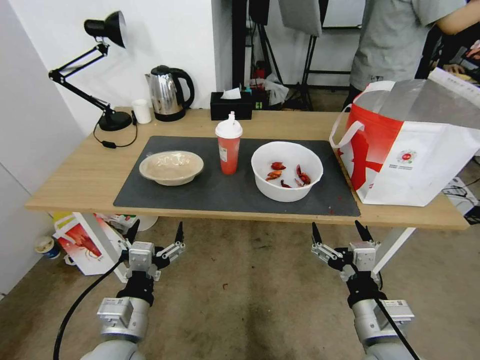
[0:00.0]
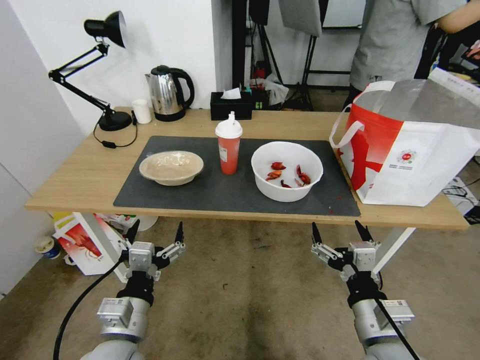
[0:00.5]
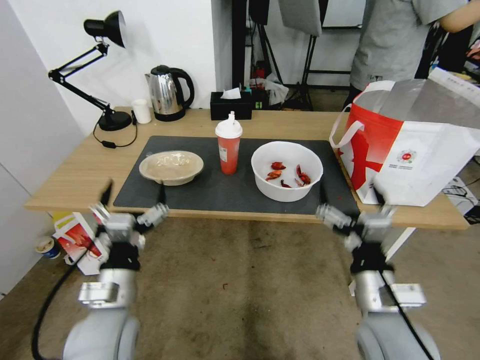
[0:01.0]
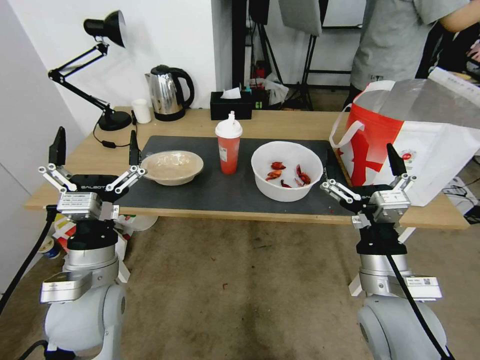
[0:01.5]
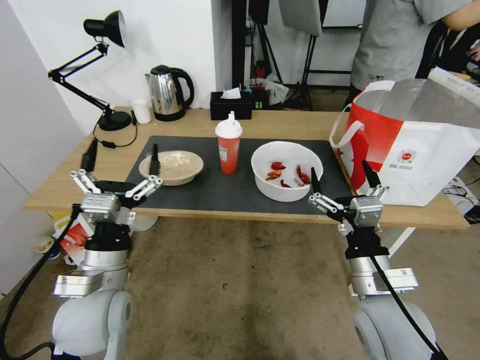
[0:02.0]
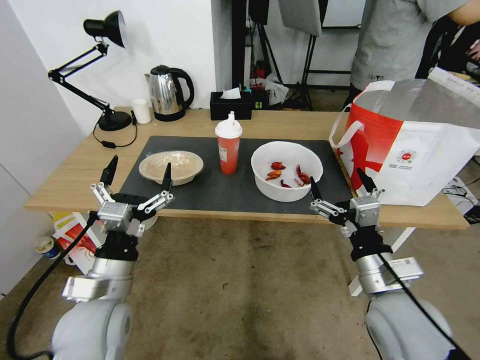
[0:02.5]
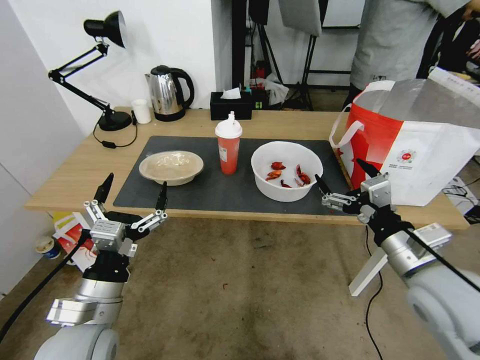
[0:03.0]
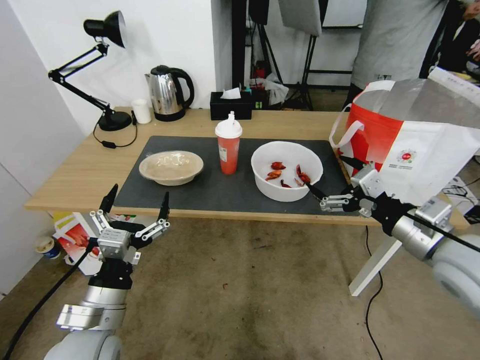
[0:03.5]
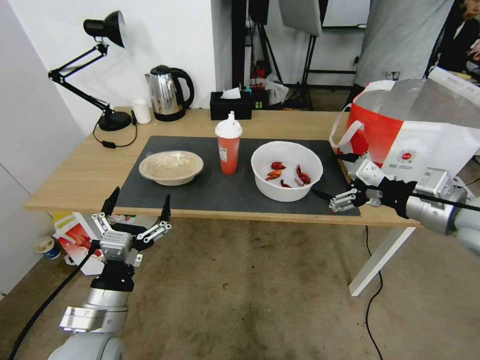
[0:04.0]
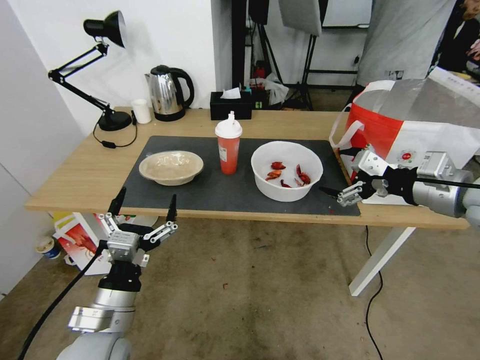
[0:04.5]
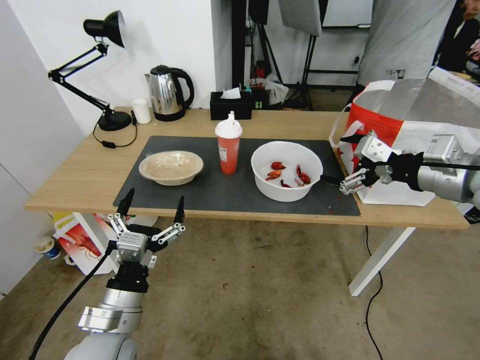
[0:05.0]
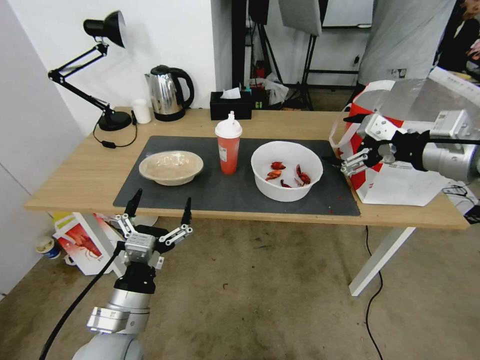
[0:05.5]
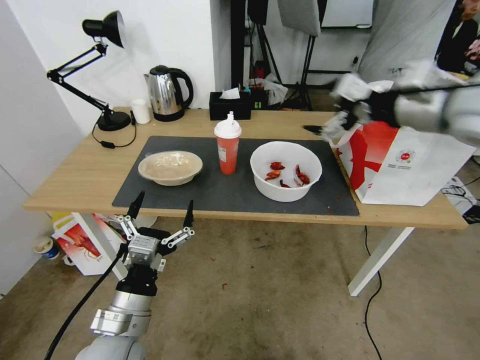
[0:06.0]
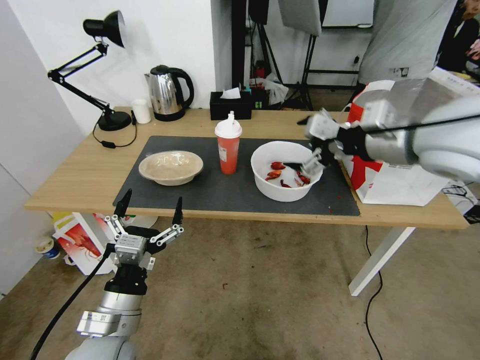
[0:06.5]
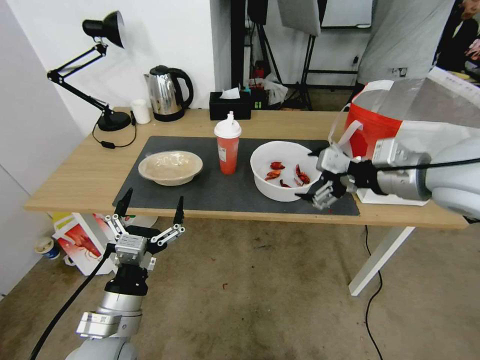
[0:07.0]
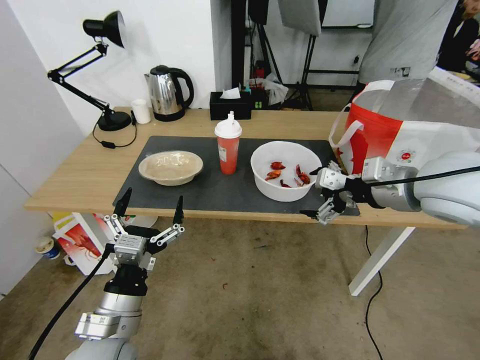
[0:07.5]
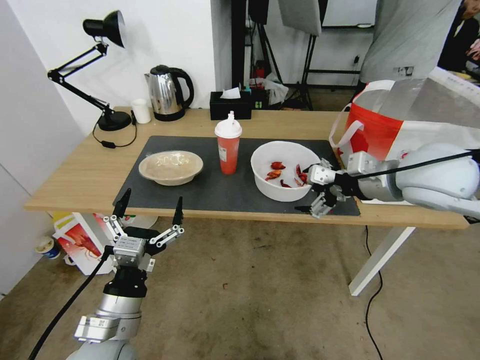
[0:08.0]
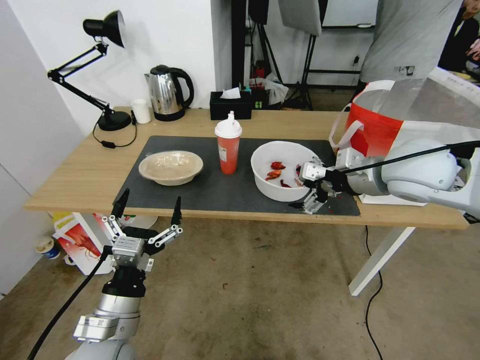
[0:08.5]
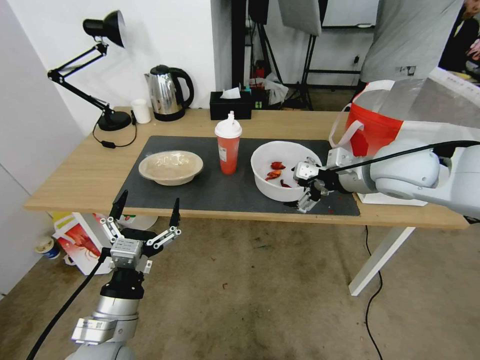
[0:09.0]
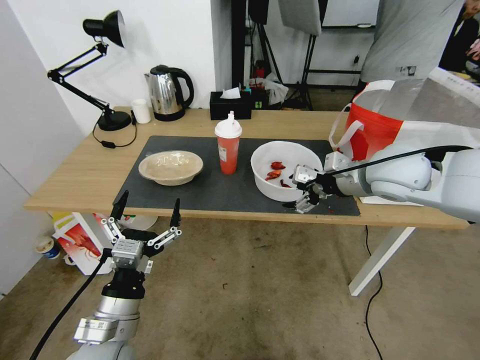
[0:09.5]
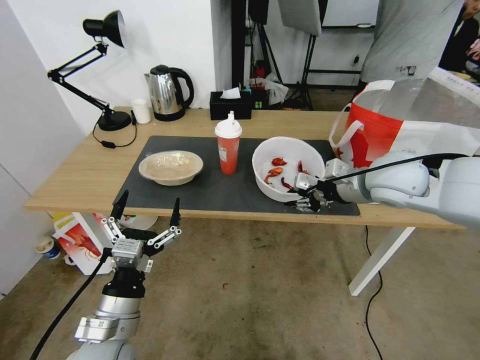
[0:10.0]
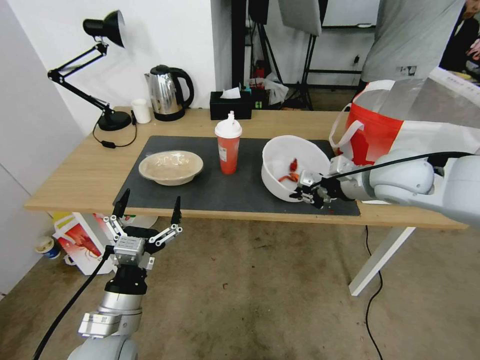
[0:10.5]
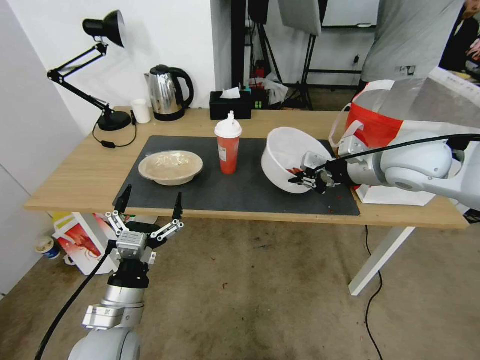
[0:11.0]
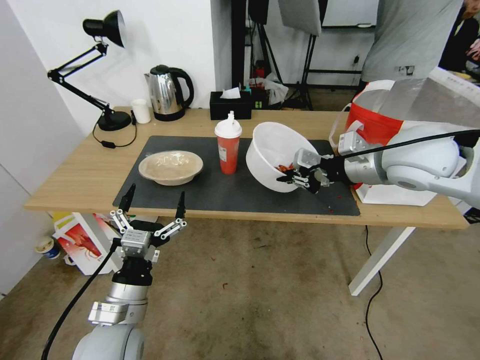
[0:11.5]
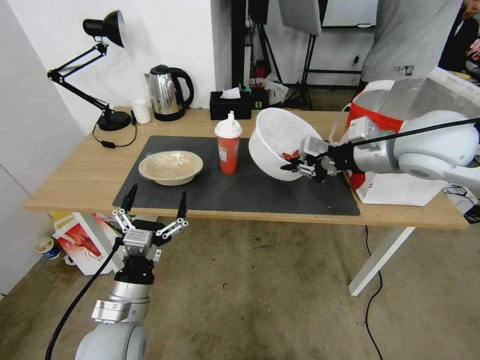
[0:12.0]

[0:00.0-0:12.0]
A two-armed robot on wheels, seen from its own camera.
Task of the whole recording: Pick up the trash from the table and place it into the takeout bag.
0:02.0 to 0:04.0: The right gripper travels upward, to the right and forward by roughly 20 cm; the left gripper shifts approximately 5 cm backward.
0:04.0 to 0:06.0: The right gripper moves upward and forward, roughly 15 cm.
0:06.0 to 0:08.0: The right gripper heads downward, covering approximately 10 cm.
0:08.0 to 0:10.0: The right gripper travels downward by approximately 5 cm, and closes.
0:10.0 to 0:12.0: The right gripper moves upward, roughly 10 cm.

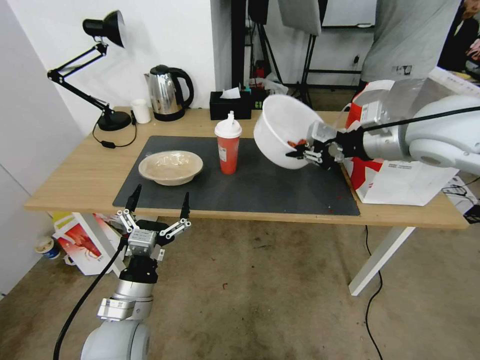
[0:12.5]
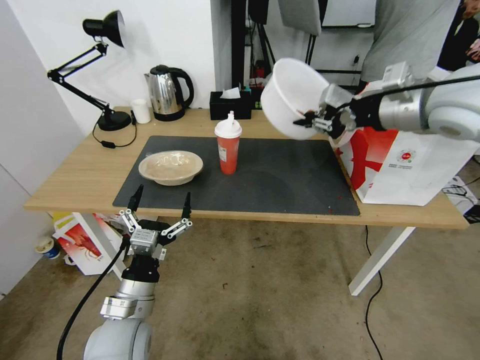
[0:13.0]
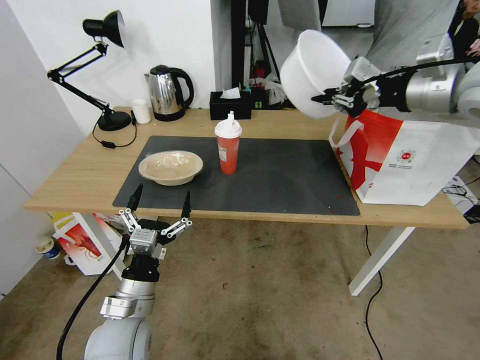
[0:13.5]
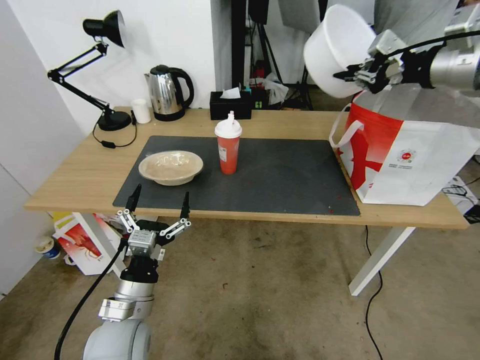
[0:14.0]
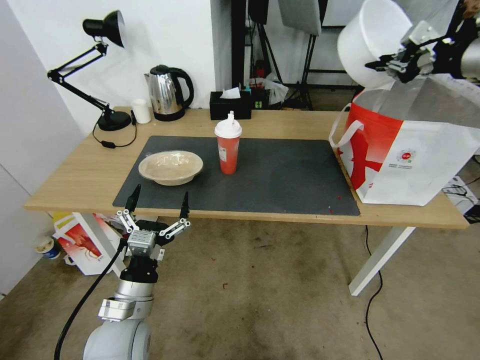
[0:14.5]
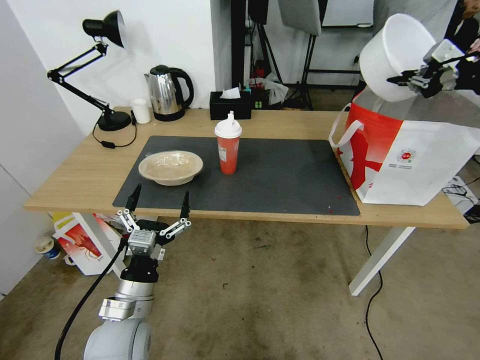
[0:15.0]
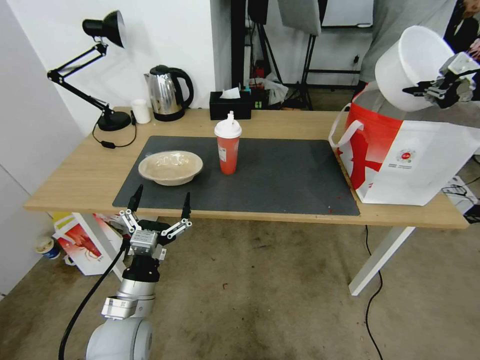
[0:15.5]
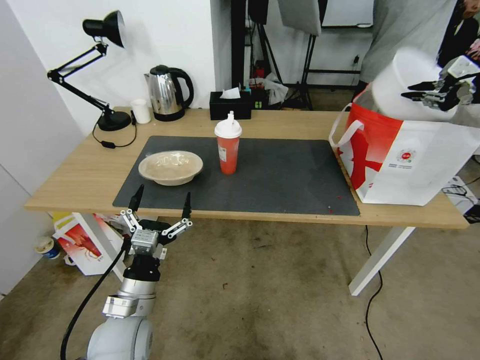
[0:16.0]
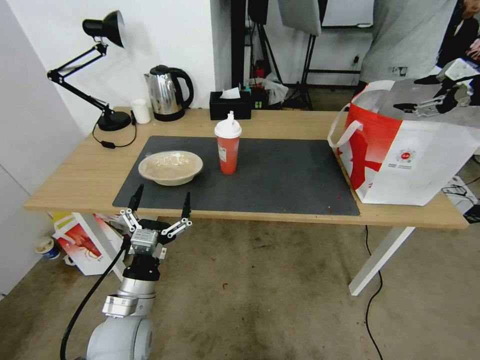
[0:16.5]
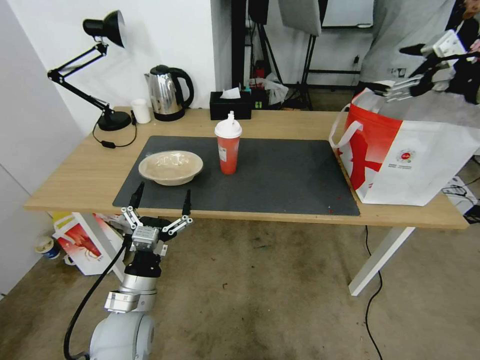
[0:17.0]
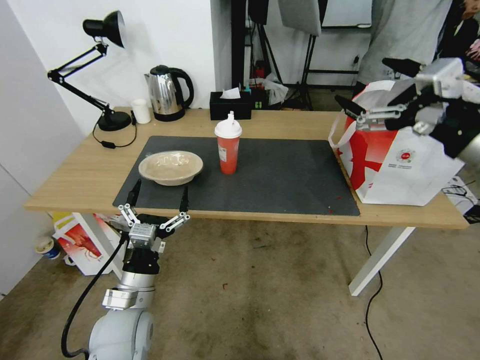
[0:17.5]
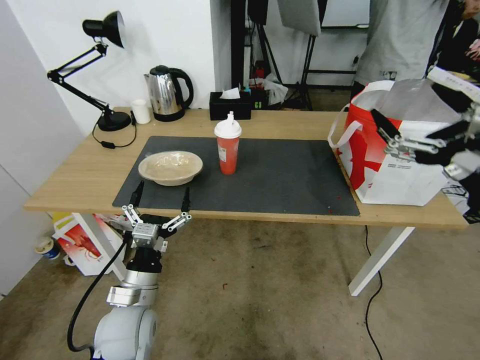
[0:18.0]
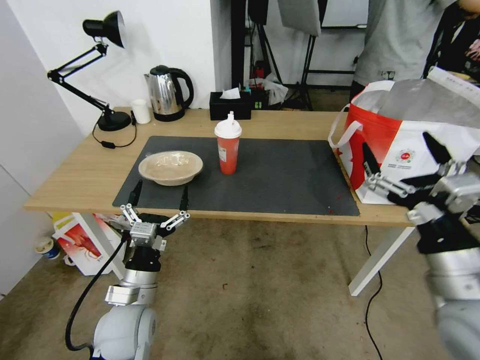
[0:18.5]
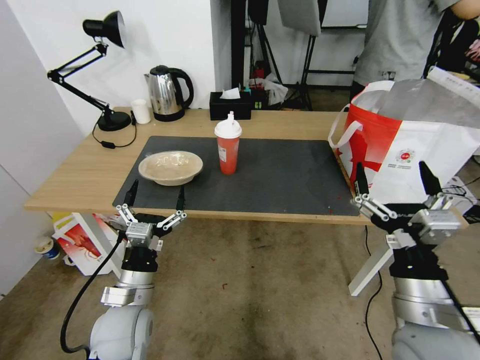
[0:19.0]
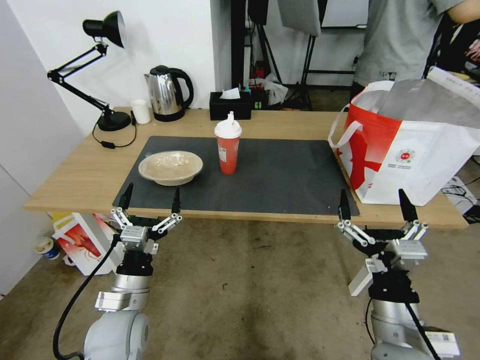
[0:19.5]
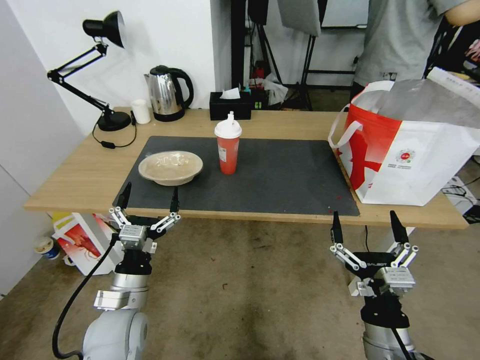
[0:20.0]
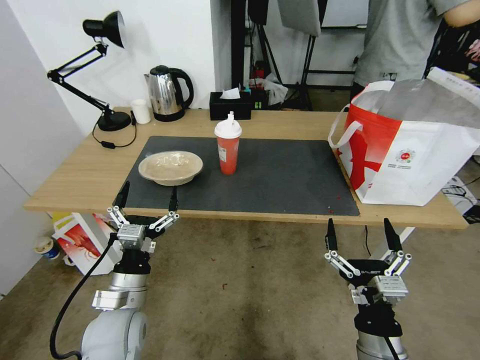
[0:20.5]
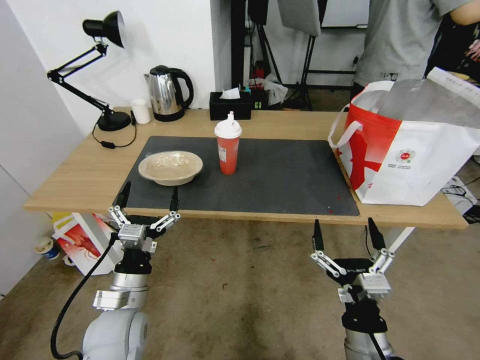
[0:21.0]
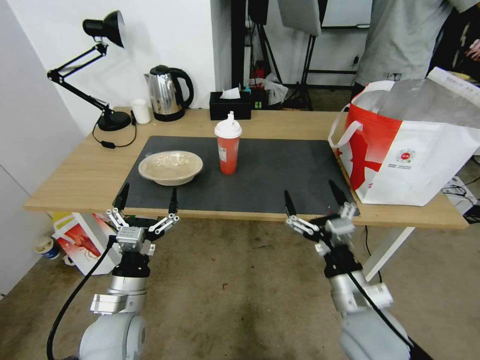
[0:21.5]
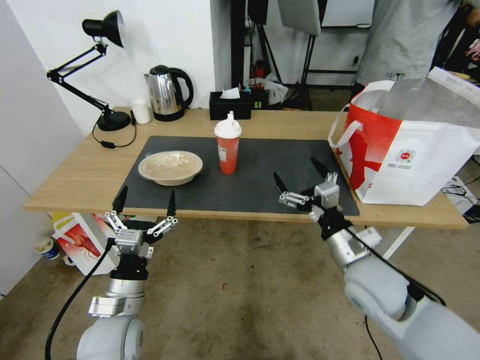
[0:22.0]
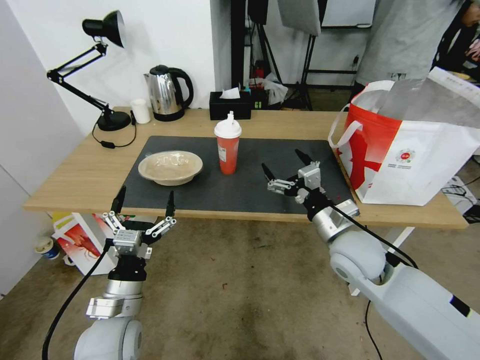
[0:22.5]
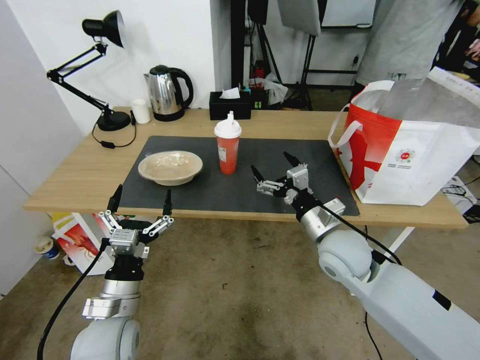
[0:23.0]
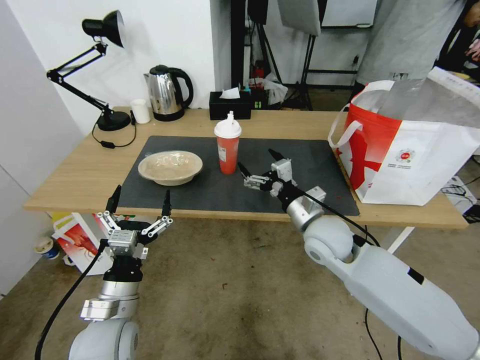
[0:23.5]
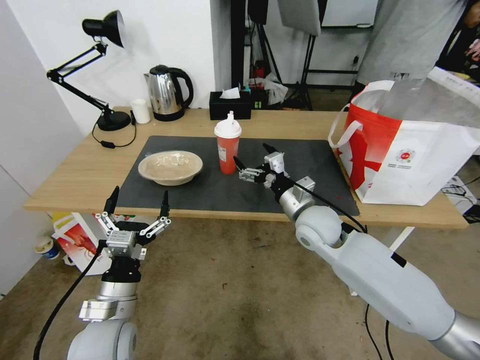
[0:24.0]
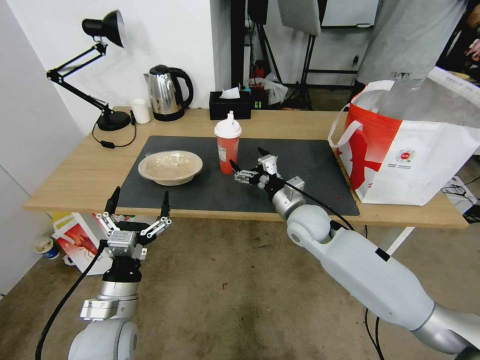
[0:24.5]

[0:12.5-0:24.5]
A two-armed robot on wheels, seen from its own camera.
Task of the whole recording: Pick up the trash from the table and place it into the takeout bag.
0:12.5 to 0:14.5: The right gripper moves to the right and upward, roughly 15 cm.
0:14.5 to 0:16.5: The right gripper shifts about 10 cm to the right, and opens its fingers.
0:16.5 to 0:18.5: The right gripper shifts about 35 cm backward, to the left and downward.
0:18.5 to 0:20.5: The right gripper heads downward and to the left, covering some 25 cm.
0:20.5 to 0:22.5: The right gripper is displaced forward by approximately 20 cm.
0:22.5 to 0:24.5: The right gripper heads forward and to the left, covering approximately 10 cm.

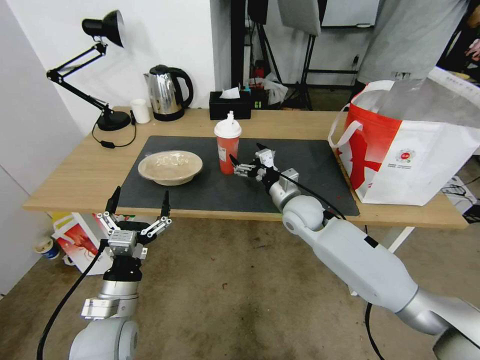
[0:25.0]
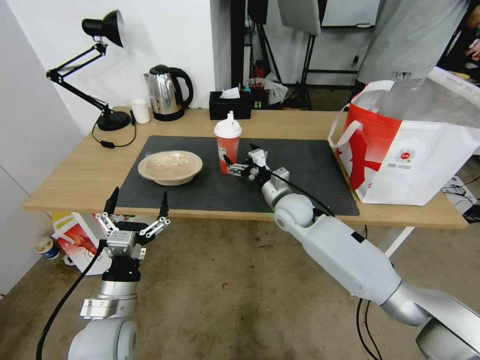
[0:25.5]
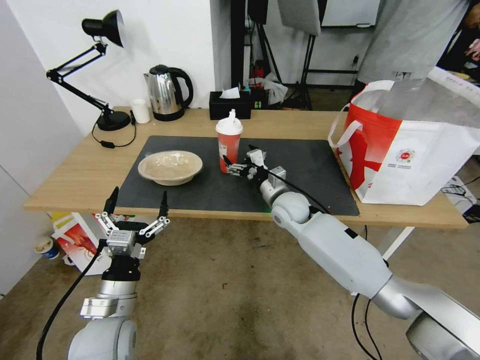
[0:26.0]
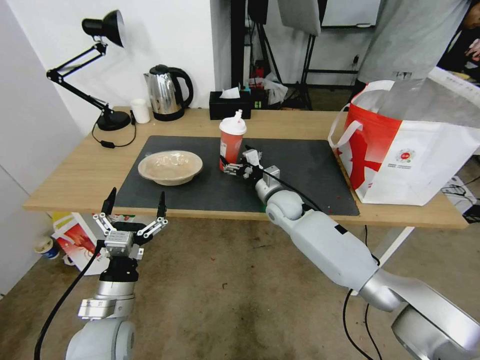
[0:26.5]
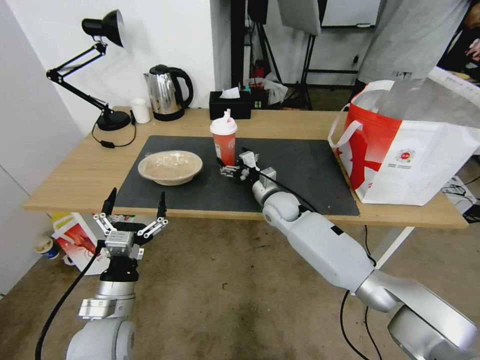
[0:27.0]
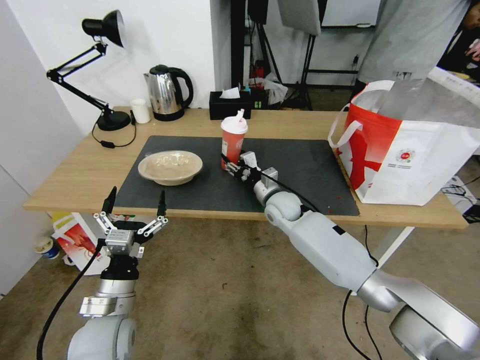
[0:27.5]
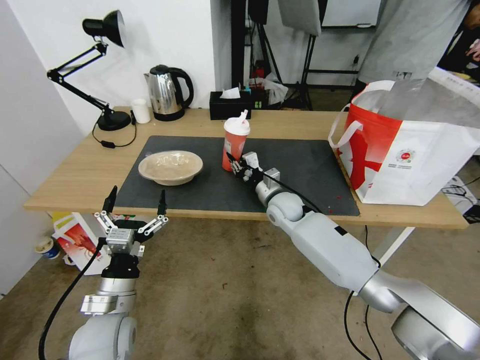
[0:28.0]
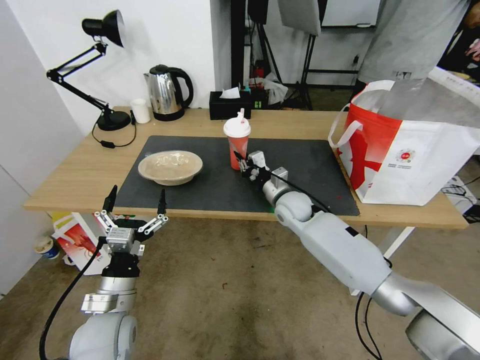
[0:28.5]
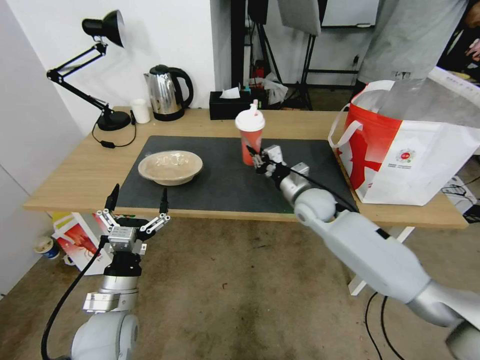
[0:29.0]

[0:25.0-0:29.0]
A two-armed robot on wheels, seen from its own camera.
Task of the whole recording: Pick up the trash from the table and place it into the takeout bag.
0:25.0 to 0:27.0: The right gripper ends up some 5 cm from where it was.
0:27.0 to 0:29.0: The right gripper moves to the right, about 10 cm, and closes its fingers.
